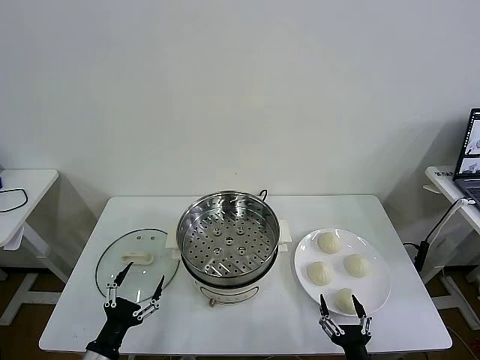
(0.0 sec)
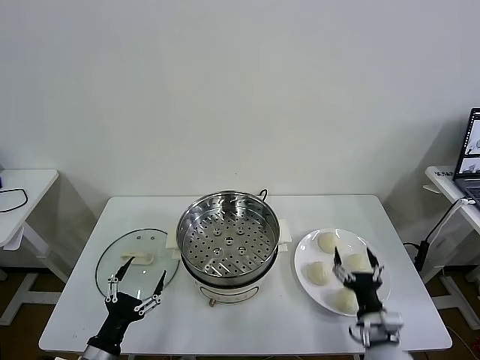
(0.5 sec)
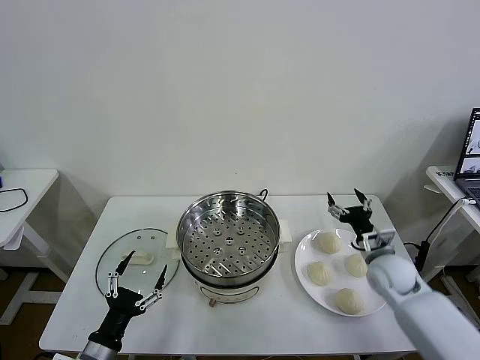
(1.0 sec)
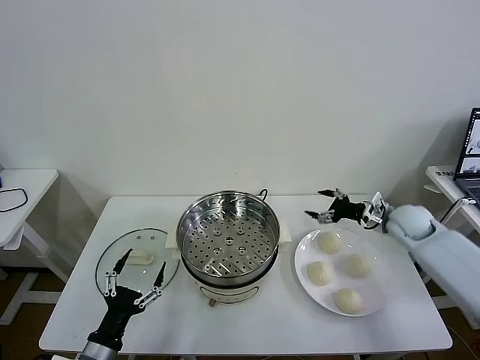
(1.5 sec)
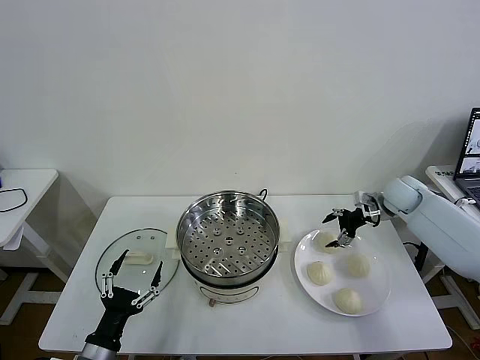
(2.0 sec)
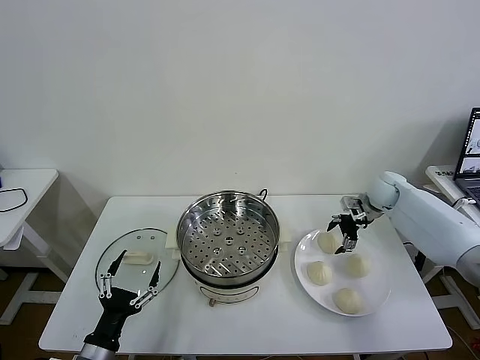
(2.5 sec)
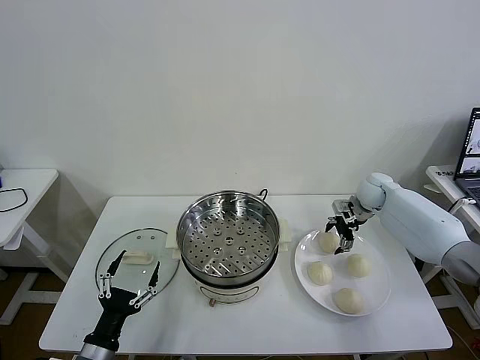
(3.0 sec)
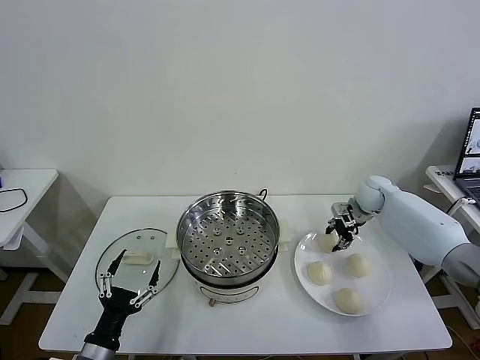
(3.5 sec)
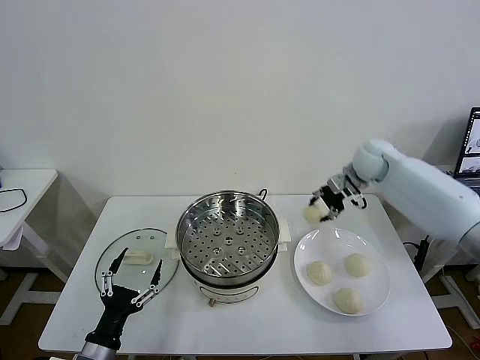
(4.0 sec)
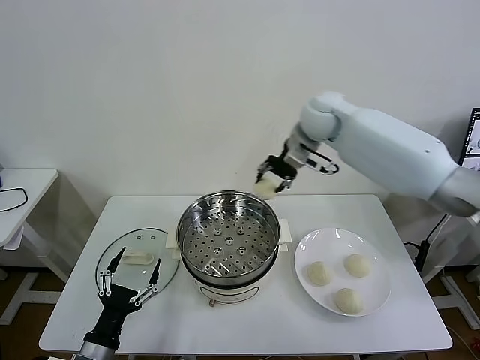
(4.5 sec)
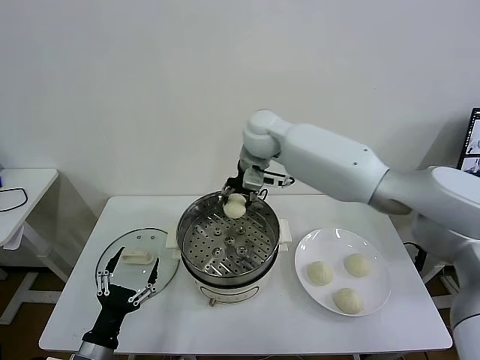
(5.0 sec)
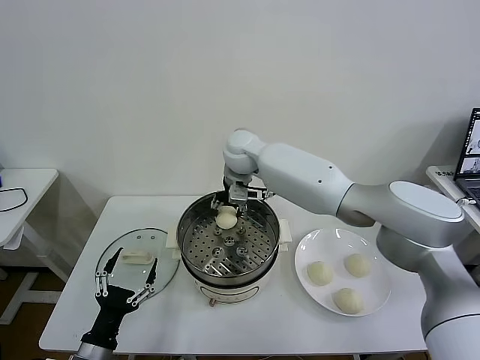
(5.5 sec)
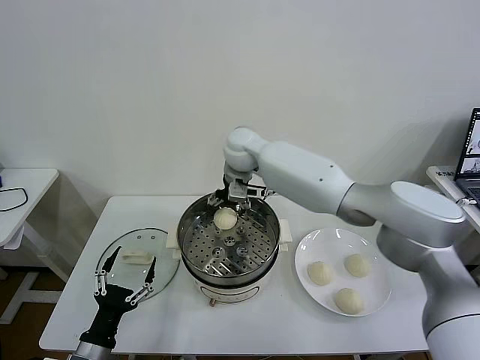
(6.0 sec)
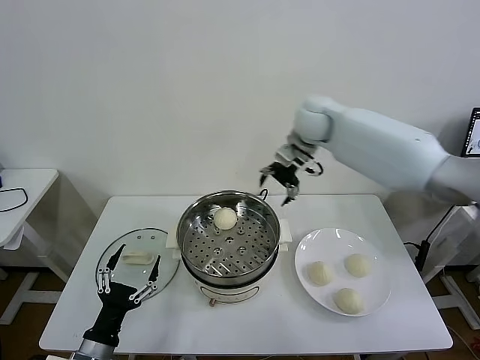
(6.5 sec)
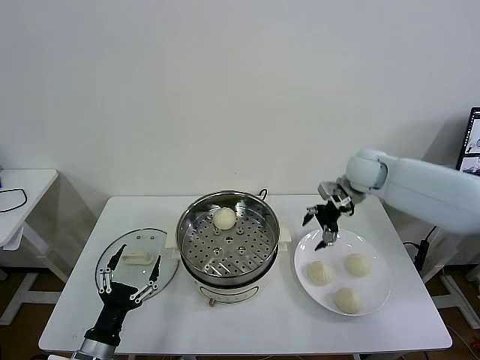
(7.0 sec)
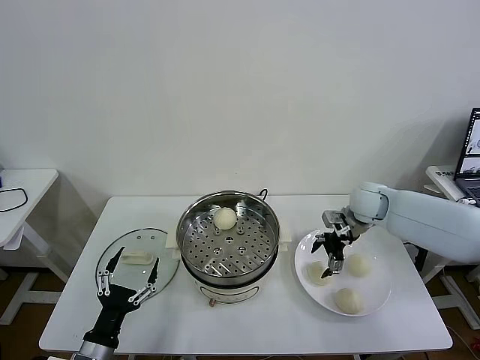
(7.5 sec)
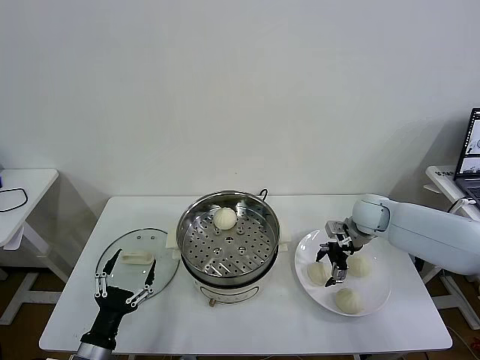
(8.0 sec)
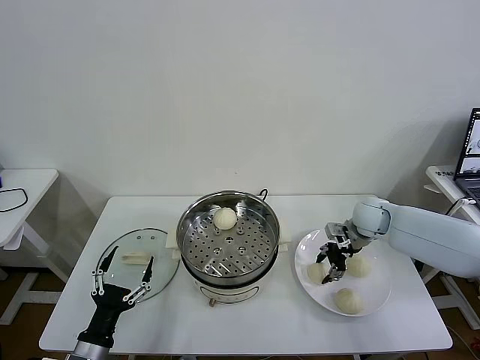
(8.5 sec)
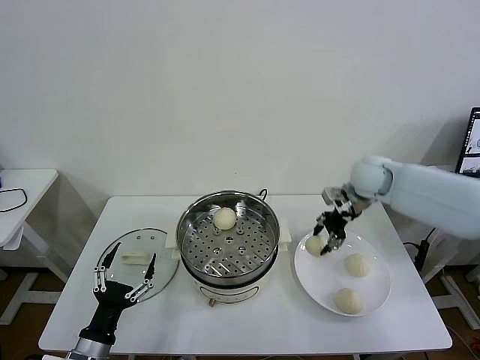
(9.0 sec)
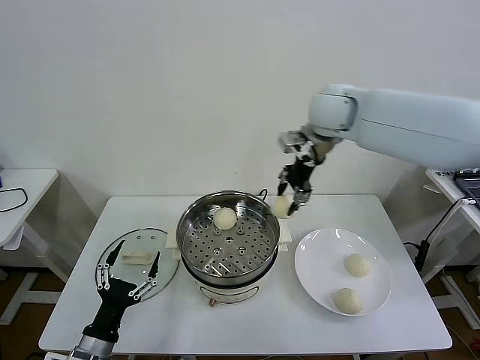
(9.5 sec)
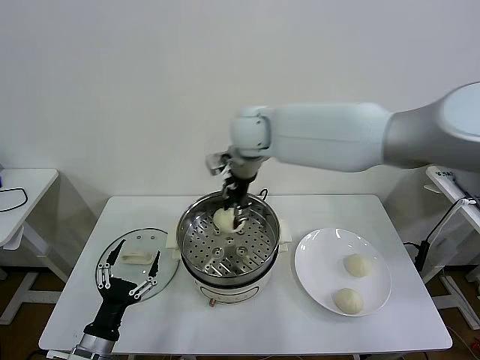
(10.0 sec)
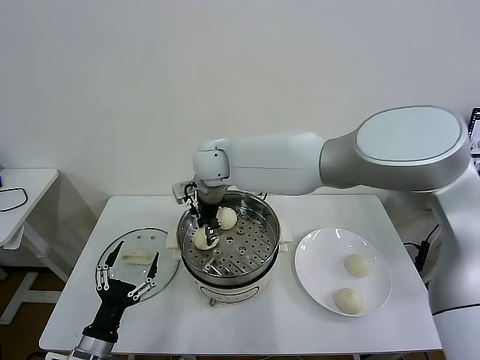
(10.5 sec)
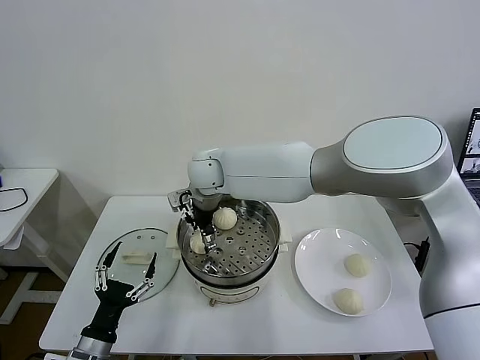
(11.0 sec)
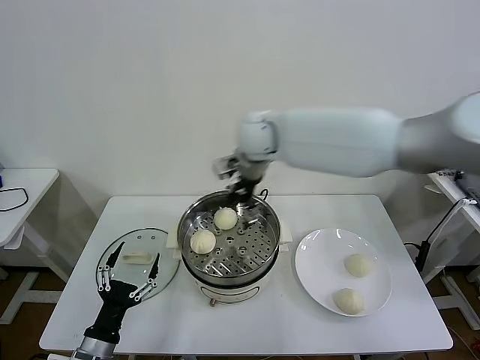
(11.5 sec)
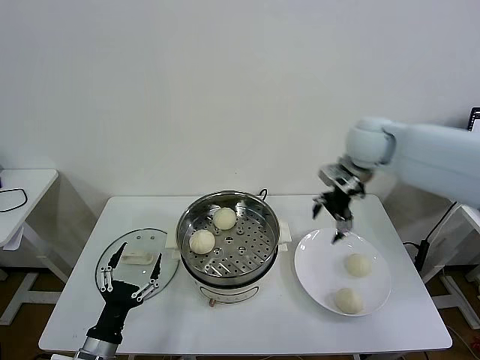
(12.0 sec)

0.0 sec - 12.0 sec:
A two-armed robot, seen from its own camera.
Task of the whole recording: take steamed baozi put them in steamer then cover it.
Step, 0.0 sec - 3.0 sec: Grasp the baozi in the plate with right gripper.
Step, 3.5 sec - 6.0 sec: Place the baozi on the steamer with right gripper.
Step, 6.5 sec - 8.5 sec: Grasp the baozi in the plate with right gripper.
Step, 9.0 sec - 11.0 sec: Place the baozi on the steamer with right gripper.
2.0 sec - 4.0 sec: The right gripper goes approximately 15 cm upward and to the left, and closes.
4.0 sec - 6.0 sec: The right gripper shifts some 30 cm to the left, and opens up.
6.0 sec - 8.0 sec: The right gripper travels to the right and downward by roughly 35 cm.
8.0 sec - 10.0 sec: The right gripper goes about 40 cm to the left and upward, and closes.
10.0 sec - 12.0 sec: The right gripper is displaced to the right by some 30 cm, and opens.

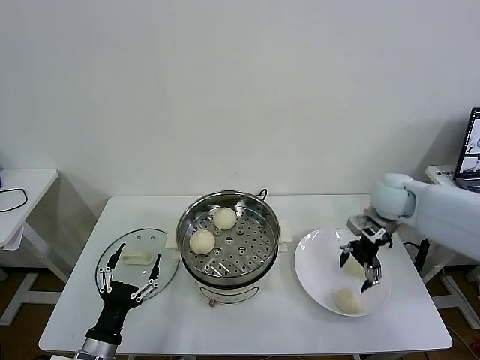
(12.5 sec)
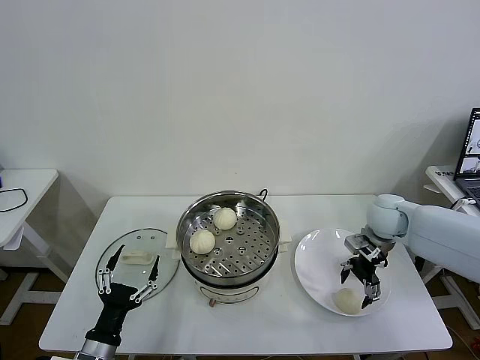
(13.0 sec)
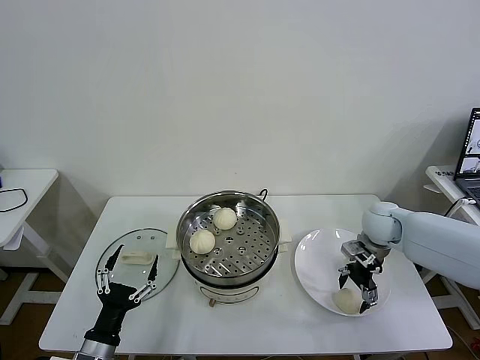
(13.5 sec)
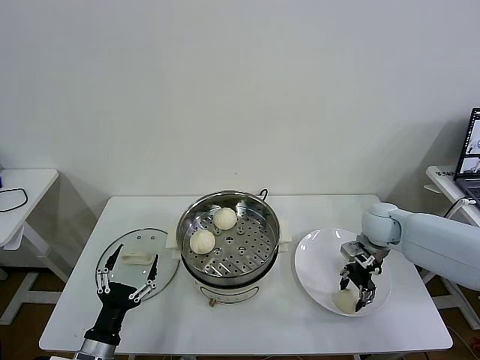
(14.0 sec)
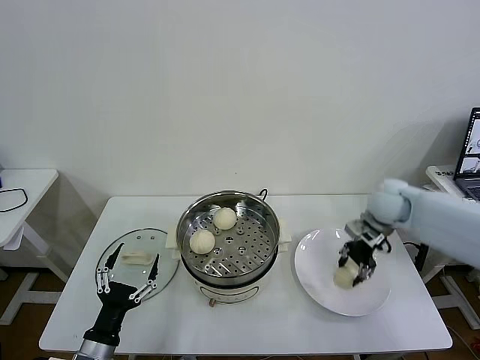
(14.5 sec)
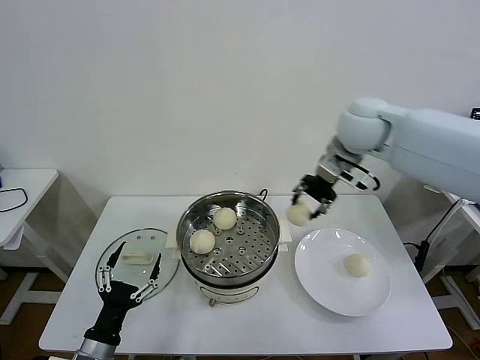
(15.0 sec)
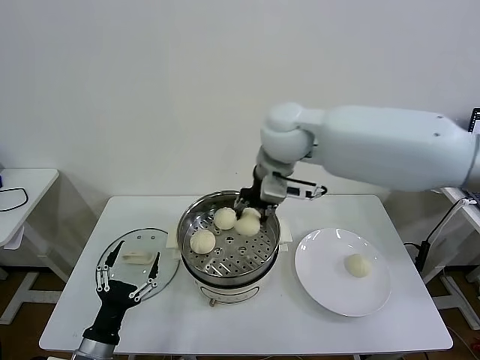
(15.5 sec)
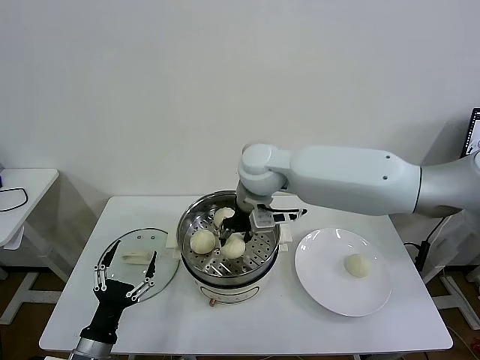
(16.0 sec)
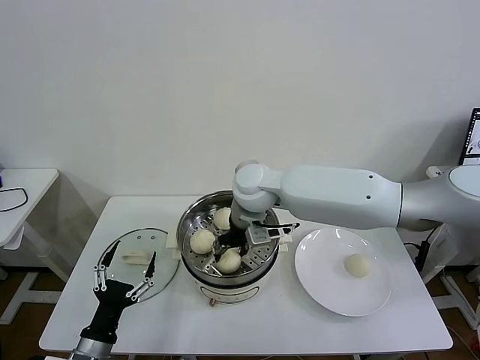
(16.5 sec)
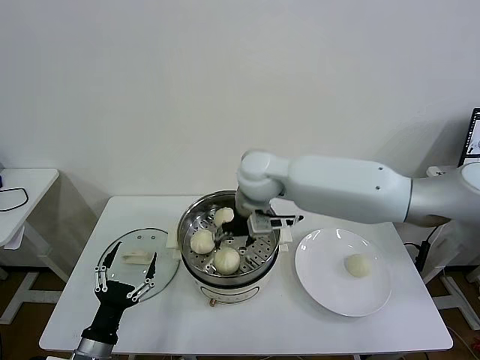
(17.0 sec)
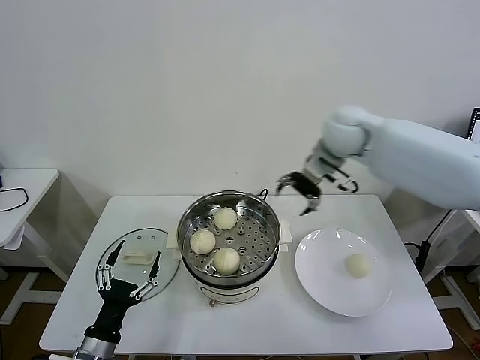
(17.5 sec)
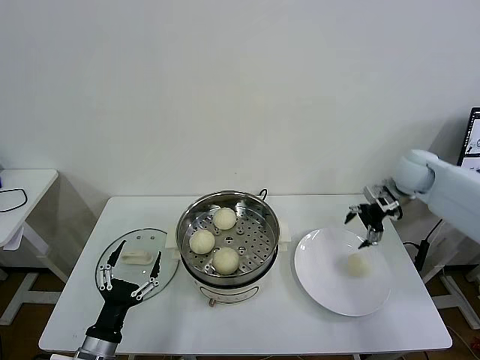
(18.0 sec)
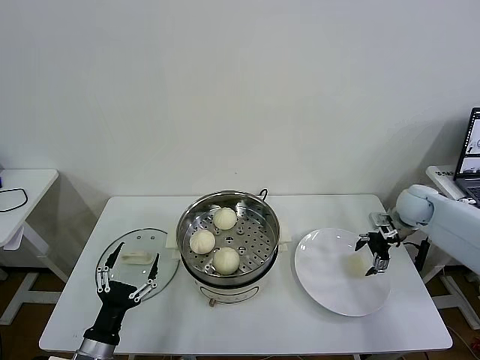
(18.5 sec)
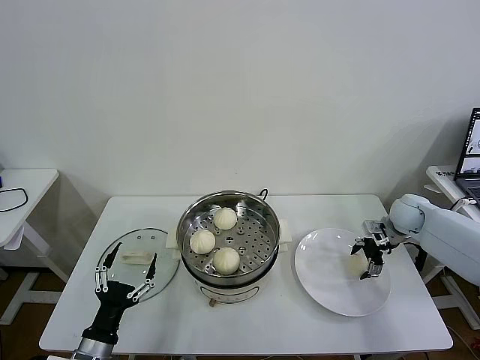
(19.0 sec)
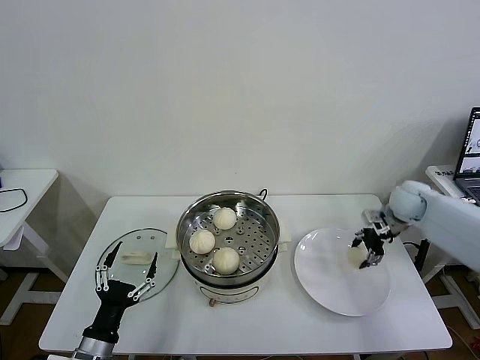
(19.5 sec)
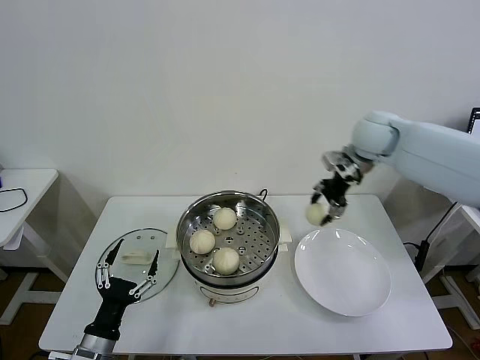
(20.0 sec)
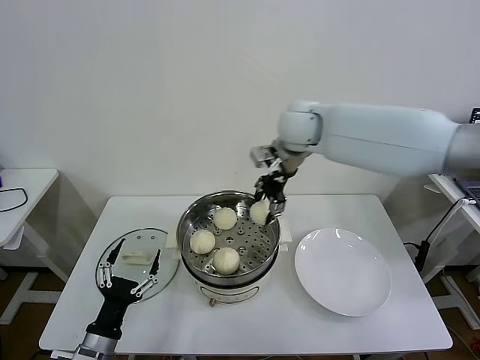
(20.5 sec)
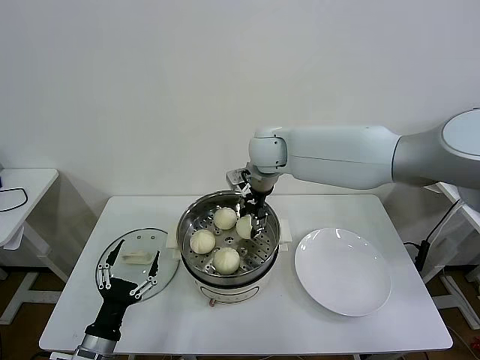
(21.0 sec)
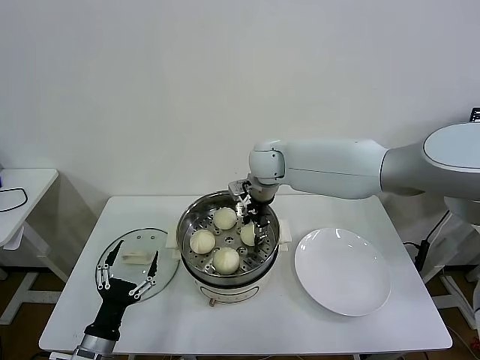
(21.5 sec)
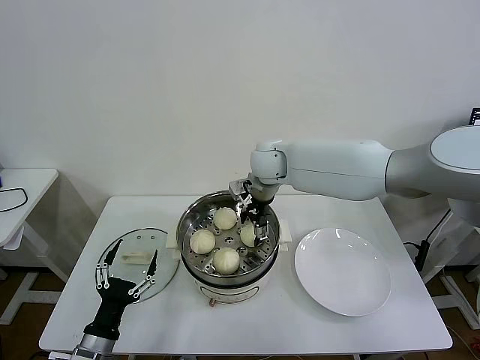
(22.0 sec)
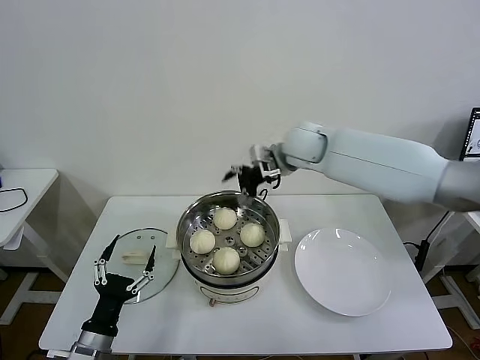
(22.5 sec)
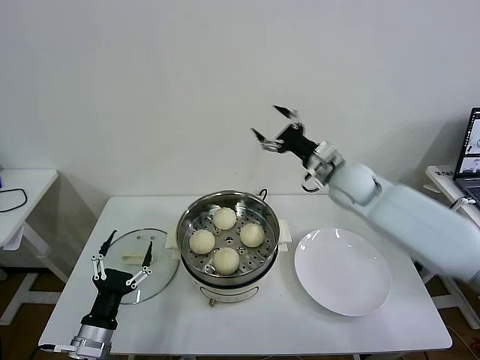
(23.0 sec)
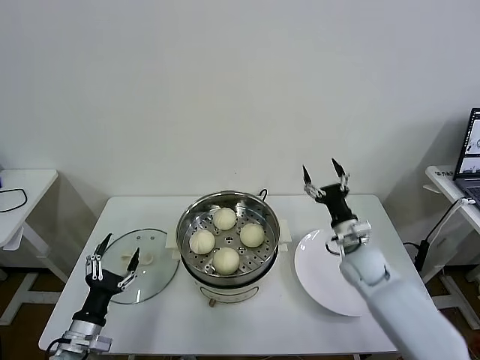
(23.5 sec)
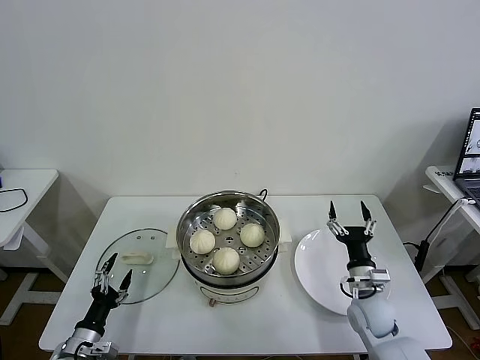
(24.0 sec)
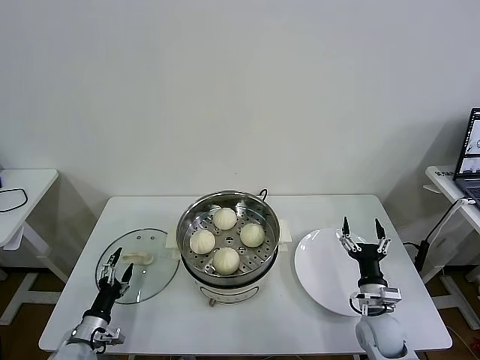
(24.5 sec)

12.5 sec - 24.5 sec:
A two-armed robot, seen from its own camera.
Task of the whole recording: take steamed baozi put them in steamer then cover it.
Step, 12.5 sec - 14.0 sec: Grasp the baozi in the plate with right gripper.
Step, 14.5 sec - 17.0 sec: Place the baozi on the steamer with right gripper.
Step, 17.5 sec - 19.0 sec: Grasp the baozi in the plate with right gripper.
Step, 19.5 sec - 22.0 sec: Place the baozi on the steamer with right gripper.
12.5 sec - 14.5 sec: The right gripper travels downward and back again, roughly 5 cm each way, and closes up.
14.5 sec - 16.5 sec: The right gripper shifts about 30 cm to the left, and opens.
16.5 sec - 18.5 sec: The right gripper goes some 40 cm to the right, and opens up.
18.5 sec - 20.5 sec: The right gripper heads to the left and upward, covering some 40 cm, and closes its fingers.
20.5 sec - 22.5 sec: The right gripper opens.
22.5 sec - 24.5 sec: The right gripper goes roughly 50 cm downward, backward and to the right; the left gripper heads downward, to the left and forward, covering about 15 cm.

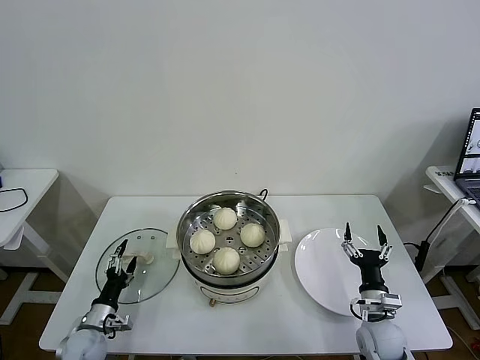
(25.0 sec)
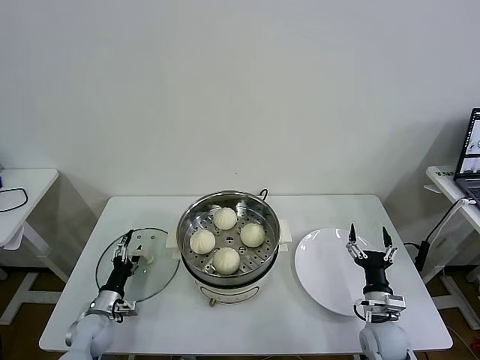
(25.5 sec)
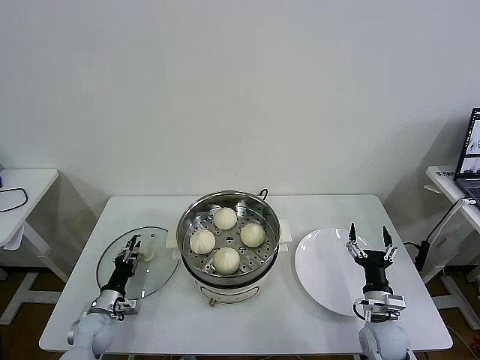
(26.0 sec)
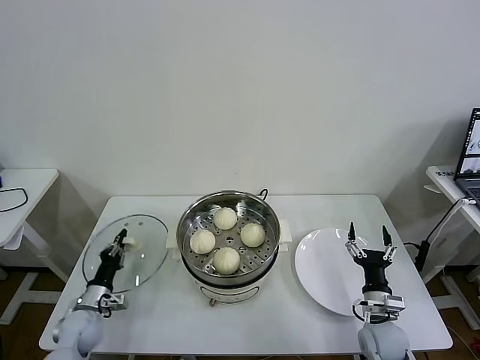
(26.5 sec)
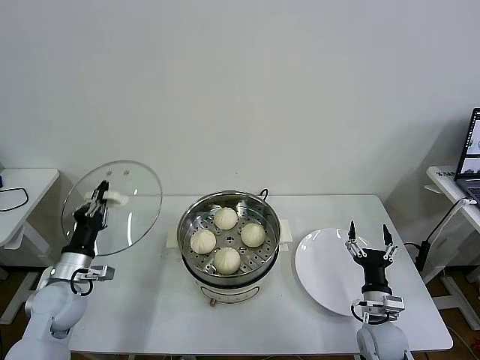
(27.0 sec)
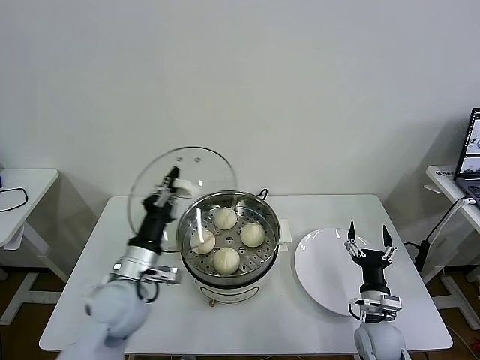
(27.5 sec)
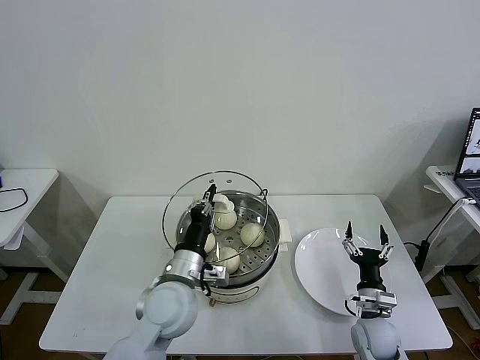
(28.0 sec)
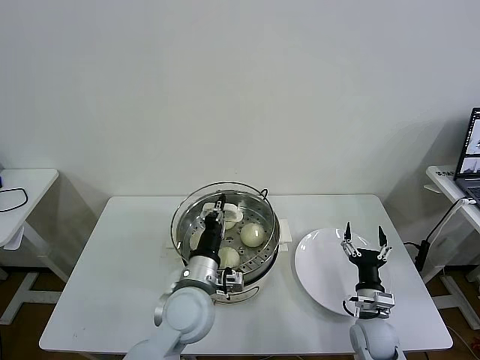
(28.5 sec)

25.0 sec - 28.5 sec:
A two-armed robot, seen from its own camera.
Task of the whole recording: take steamed baozi put them in steamer then cover it.
25.0 sec - 27.0 sec: The left gripper is displaced upward by some 15 cm, and closes.
27.0 sec - 28.5 sec: The left gripper is displaced to the right by approximately 30 cm.
